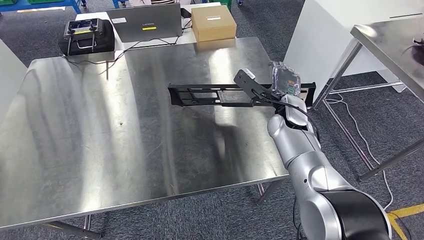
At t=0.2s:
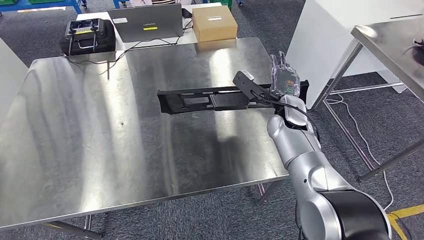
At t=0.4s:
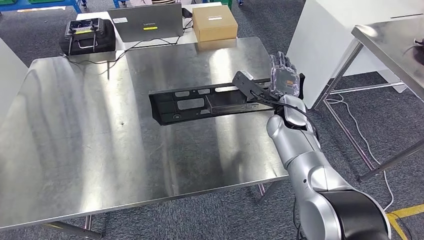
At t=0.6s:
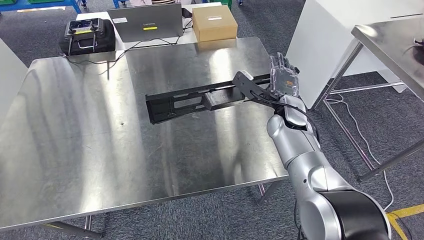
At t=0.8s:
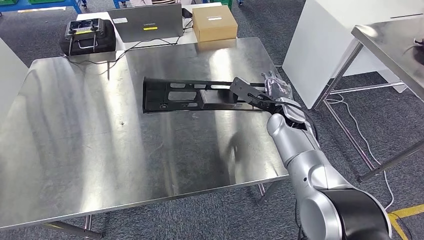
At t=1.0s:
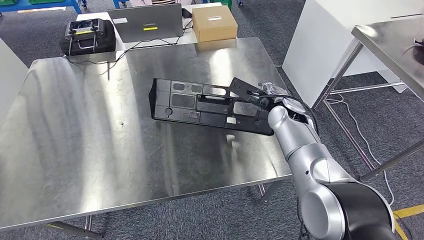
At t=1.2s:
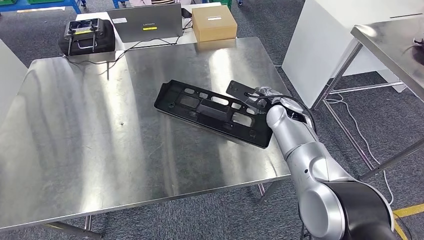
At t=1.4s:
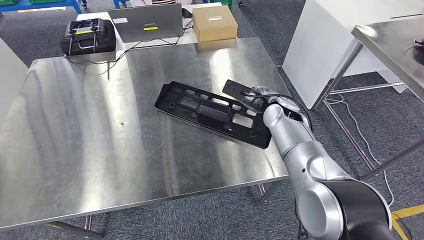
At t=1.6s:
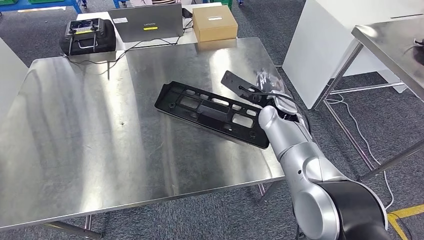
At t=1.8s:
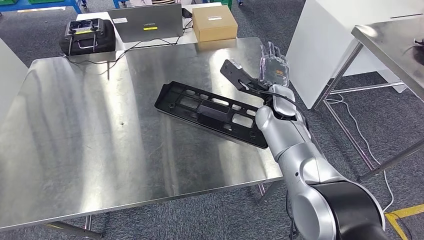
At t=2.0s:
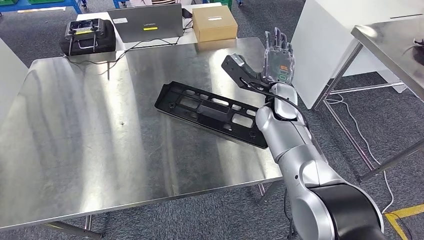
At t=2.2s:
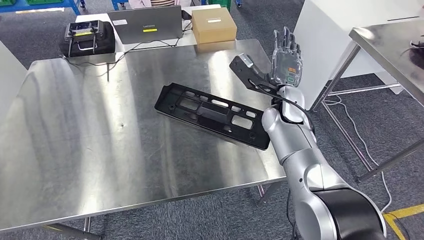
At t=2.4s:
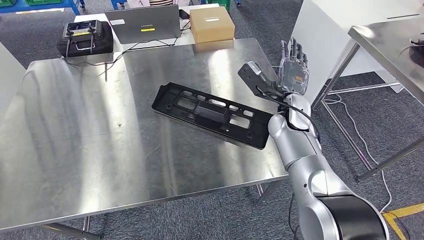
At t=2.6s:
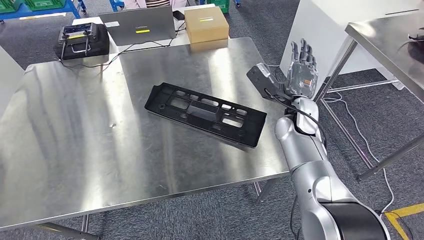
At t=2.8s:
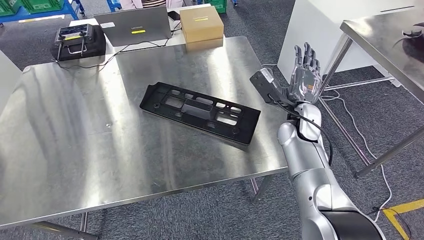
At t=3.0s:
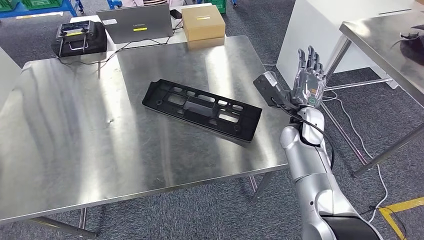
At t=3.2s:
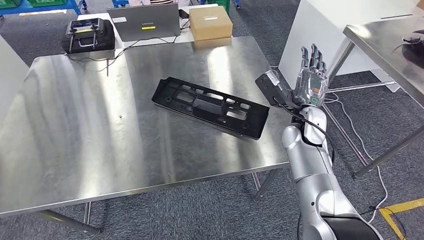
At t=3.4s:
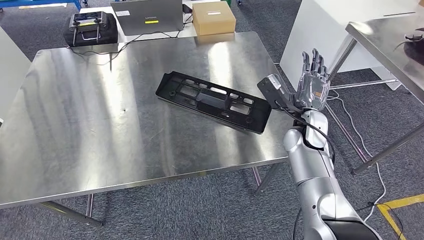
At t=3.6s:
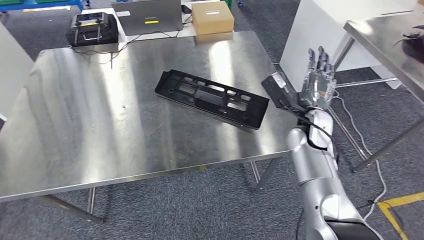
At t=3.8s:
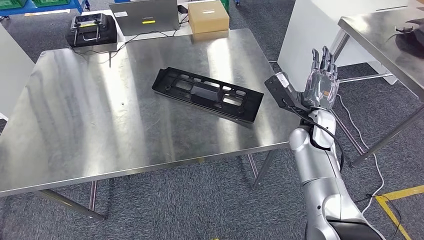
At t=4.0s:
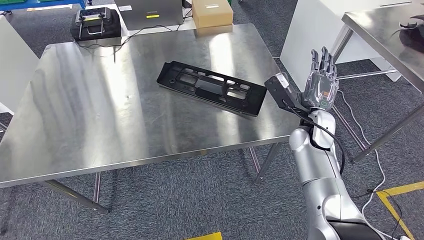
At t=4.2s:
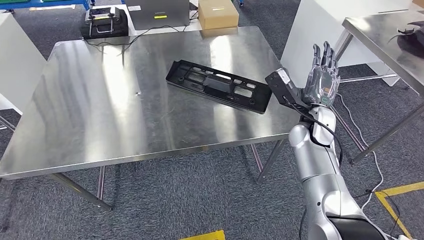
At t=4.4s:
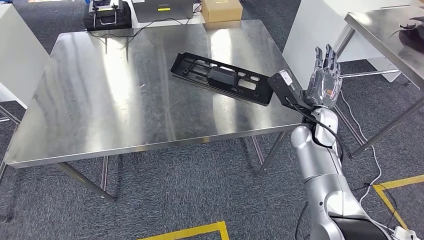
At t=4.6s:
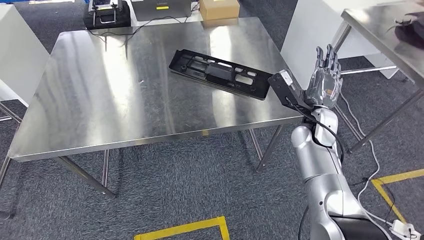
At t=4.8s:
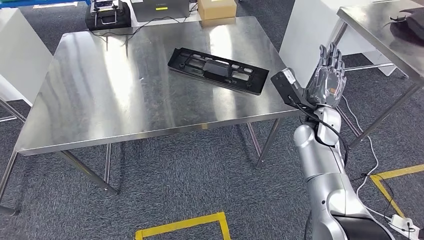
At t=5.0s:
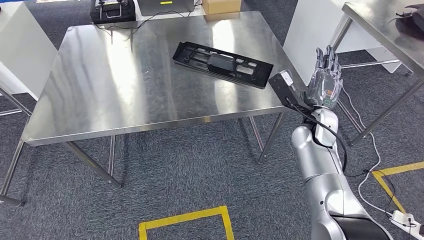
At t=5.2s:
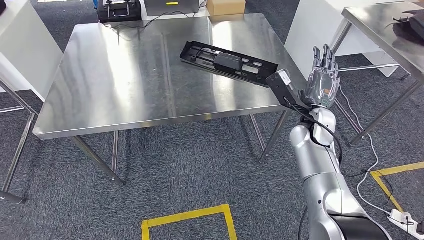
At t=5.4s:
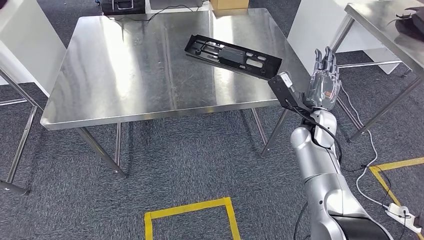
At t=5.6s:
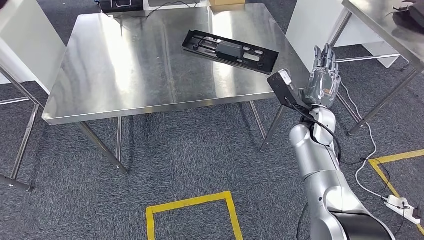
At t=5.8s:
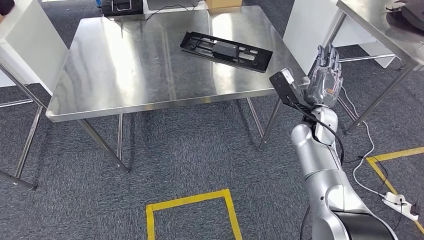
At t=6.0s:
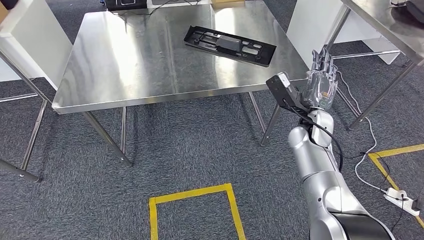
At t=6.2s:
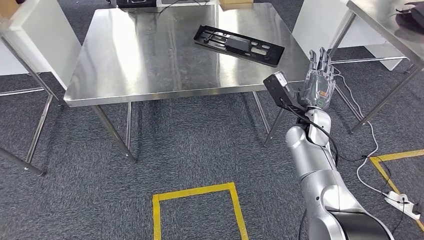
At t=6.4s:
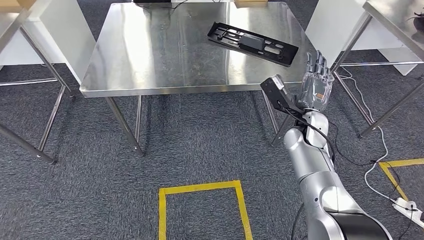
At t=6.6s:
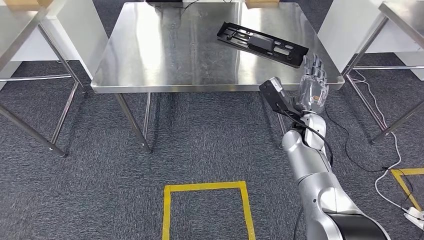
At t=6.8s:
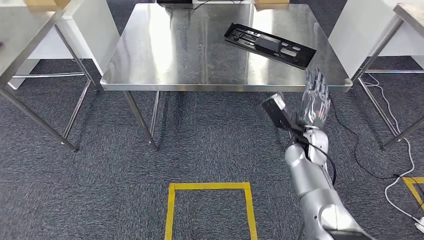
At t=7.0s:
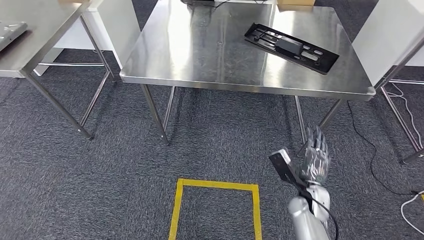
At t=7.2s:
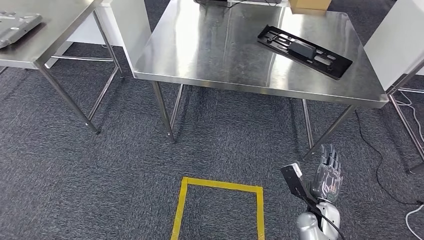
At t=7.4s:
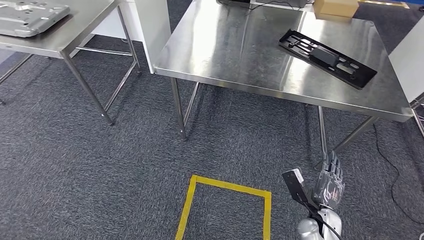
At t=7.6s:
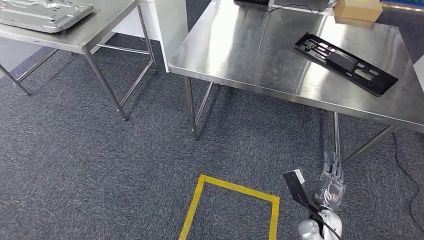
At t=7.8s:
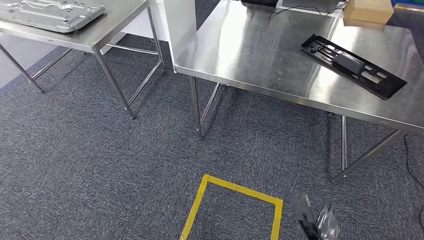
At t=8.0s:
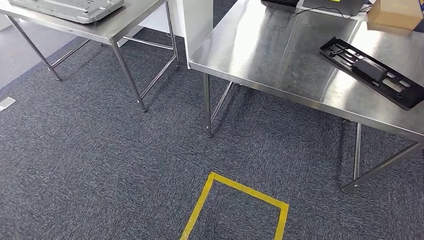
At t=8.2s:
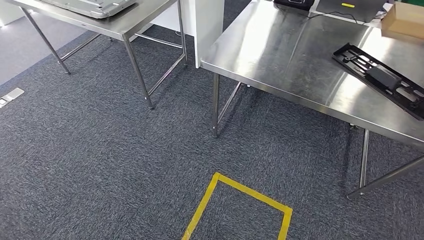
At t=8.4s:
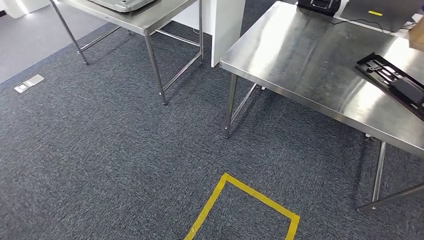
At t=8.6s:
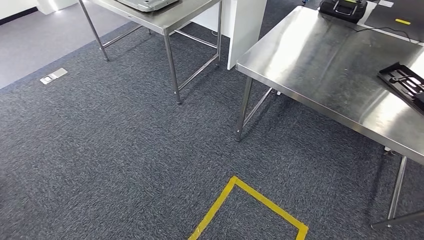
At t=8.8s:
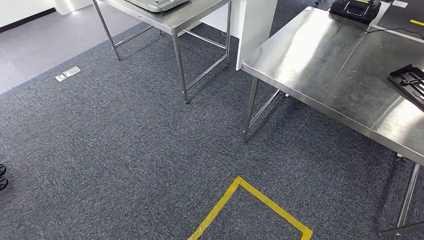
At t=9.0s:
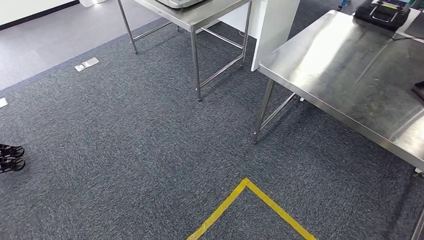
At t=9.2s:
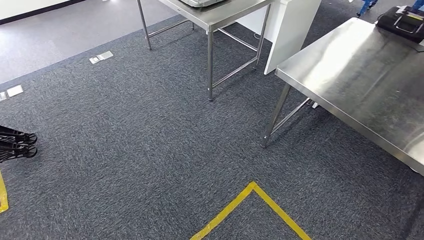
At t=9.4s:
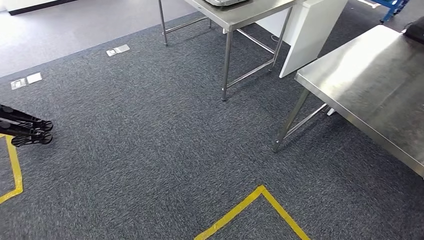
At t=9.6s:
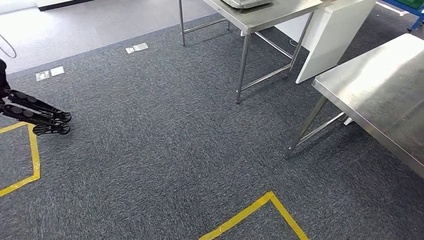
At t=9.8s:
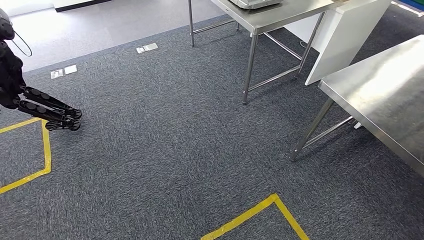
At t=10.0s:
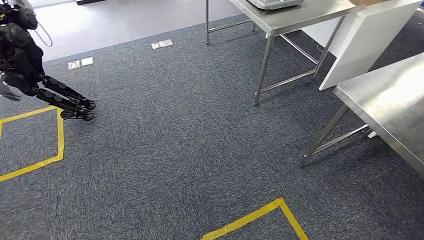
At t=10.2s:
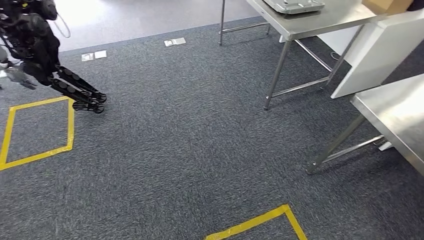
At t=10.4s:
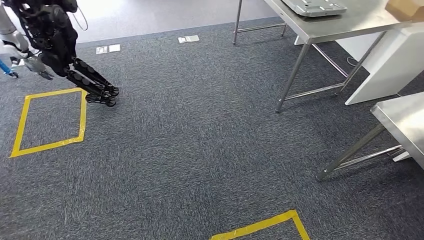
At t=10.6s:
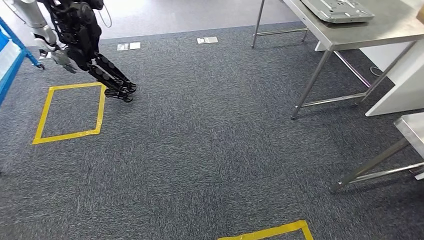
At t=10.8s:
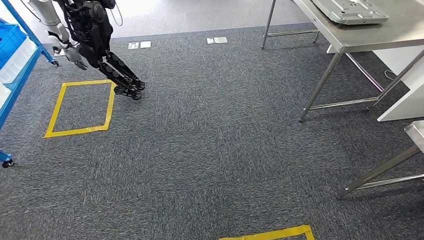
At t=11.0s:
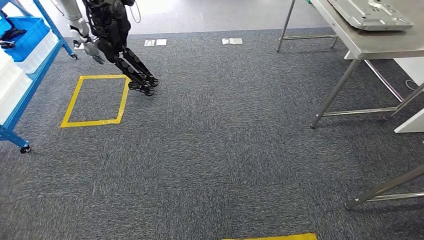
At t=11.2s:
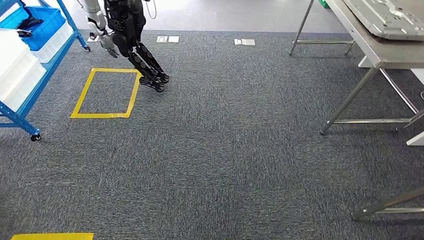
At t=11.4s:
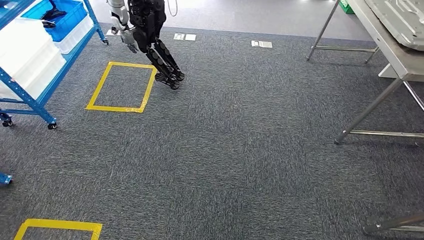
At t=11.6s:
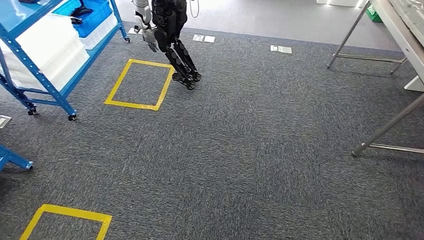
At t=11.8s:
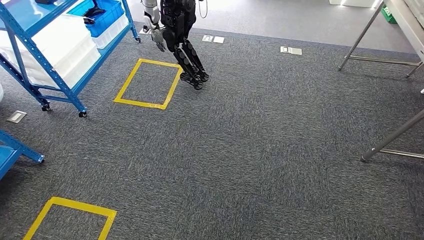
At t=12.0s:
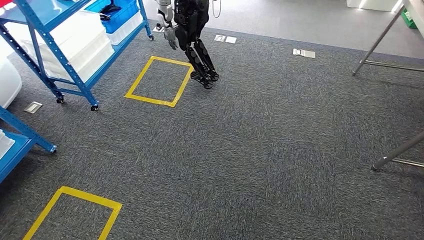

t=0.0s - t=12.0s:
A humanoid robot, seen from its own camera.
Step, t=0.0s - t=7.2s: Insert the large material into the corresponding slot on the workbench.

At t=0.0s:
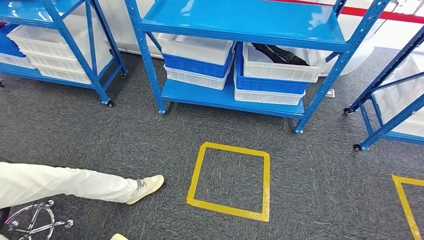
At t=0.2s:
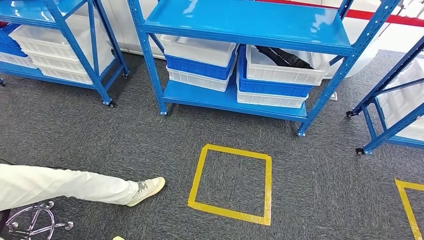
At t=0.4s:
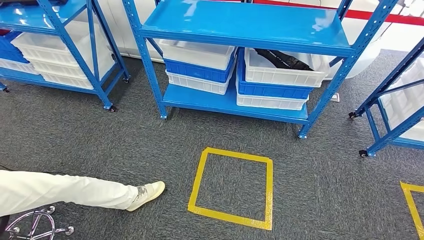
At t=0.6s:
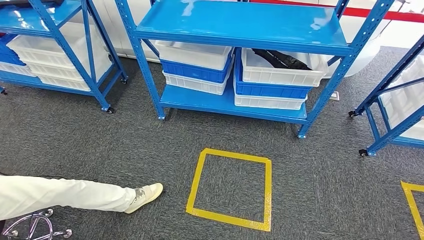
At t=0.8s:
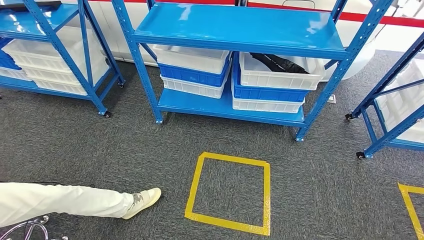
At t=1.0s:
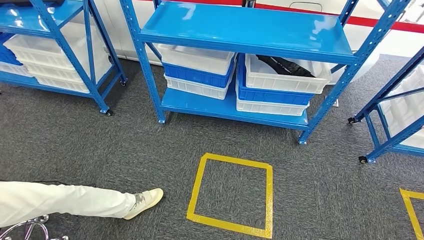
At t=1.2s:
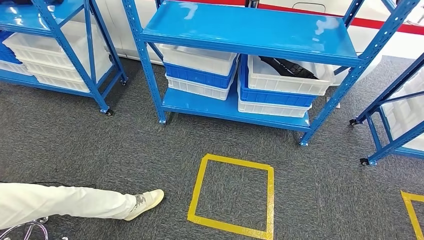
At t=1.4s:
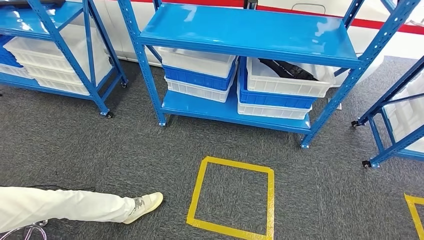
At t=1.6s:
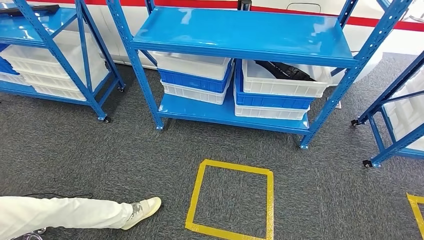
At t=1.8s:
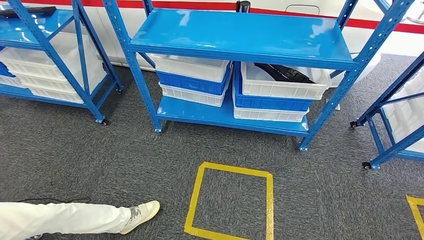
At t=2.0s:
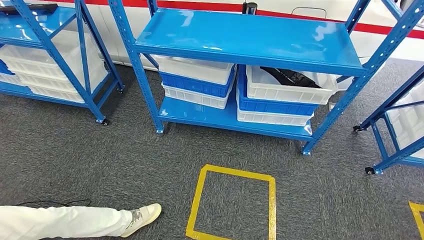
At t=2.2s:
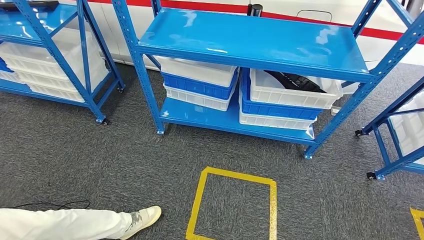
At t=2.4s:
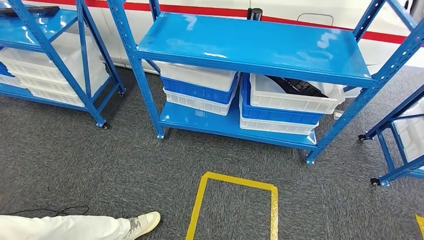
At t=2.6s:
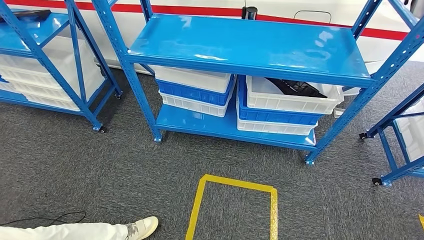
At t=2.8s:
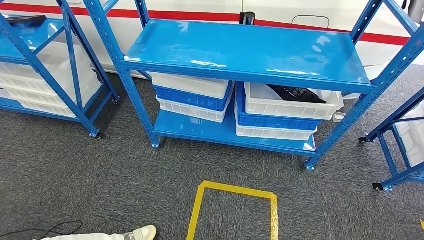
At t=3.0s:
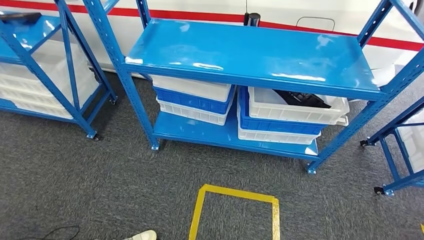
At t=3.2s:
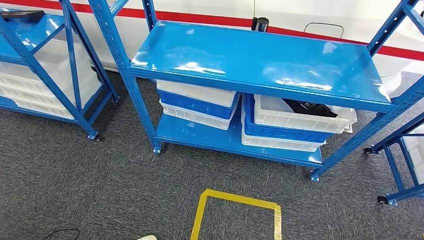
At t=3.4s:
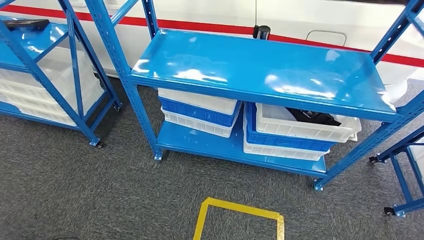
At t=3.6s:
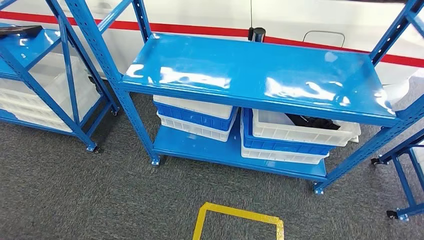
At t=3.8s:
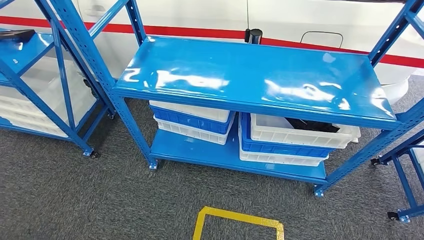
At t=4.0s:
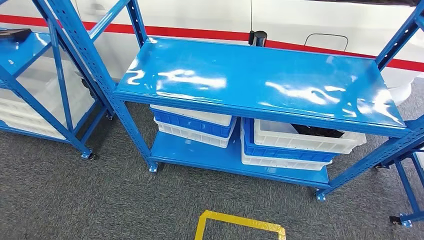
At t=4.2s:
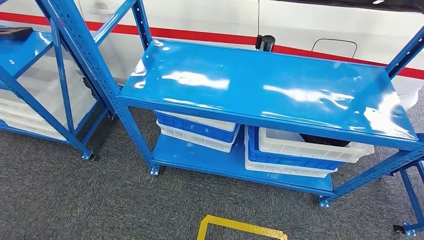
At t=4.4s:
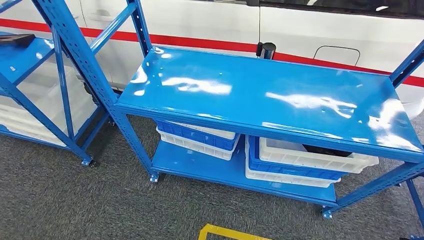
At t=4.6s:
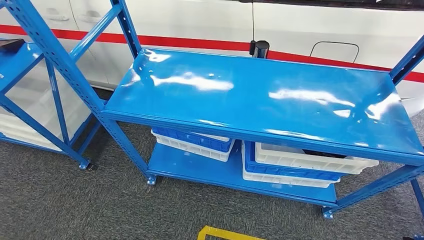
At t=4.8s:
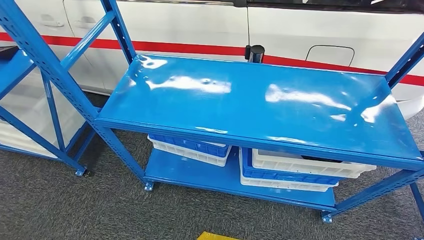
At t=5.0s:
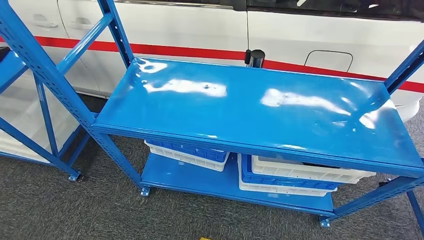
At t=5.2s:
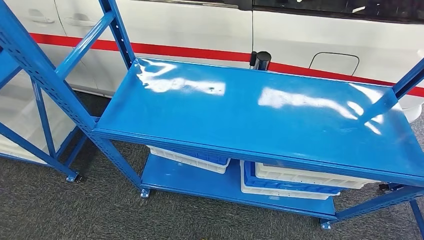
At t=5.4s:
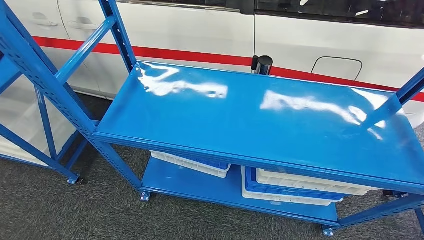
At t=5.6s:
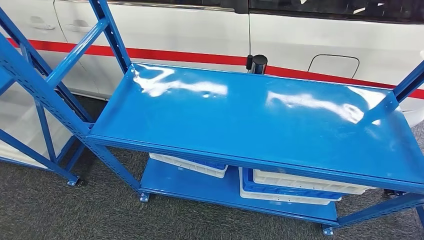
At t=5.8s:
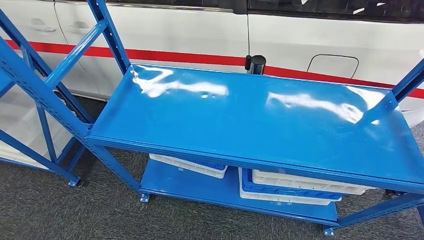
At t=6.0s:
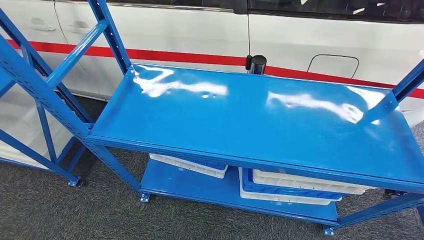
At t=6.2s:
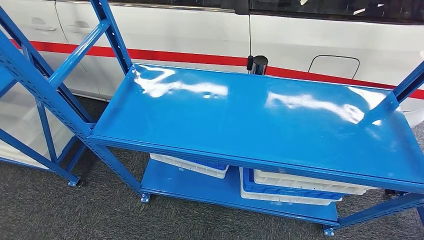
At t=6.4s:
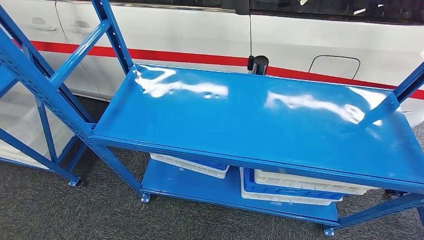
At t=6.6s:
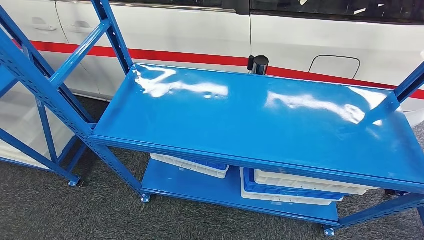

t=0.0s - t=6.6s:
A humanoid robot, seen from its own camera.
Step, t=0.0s - t=6.6s: Return to the initial position at the shelf.
